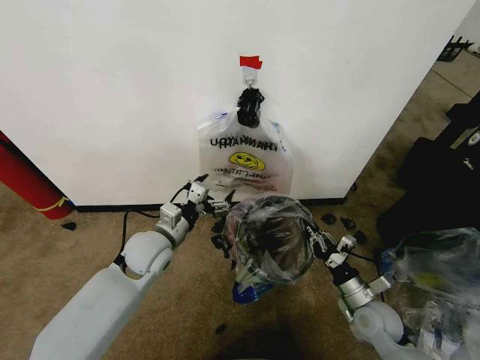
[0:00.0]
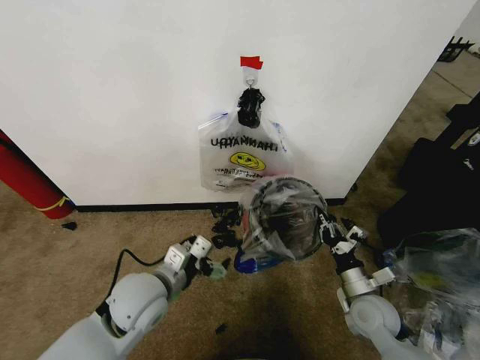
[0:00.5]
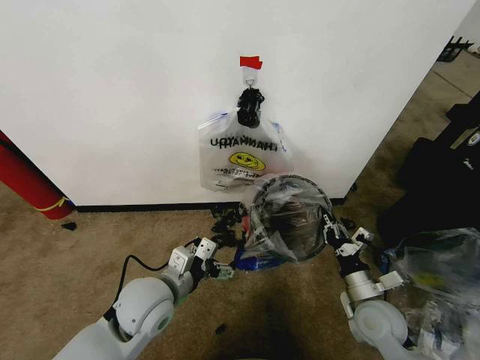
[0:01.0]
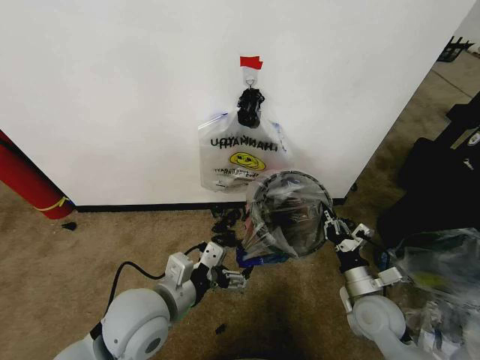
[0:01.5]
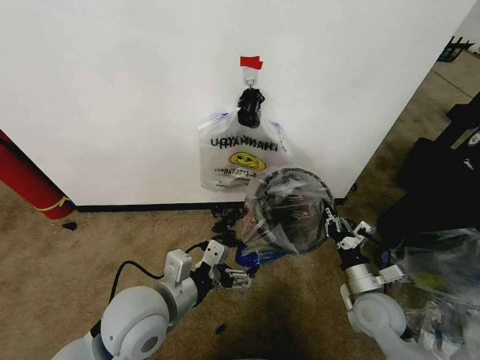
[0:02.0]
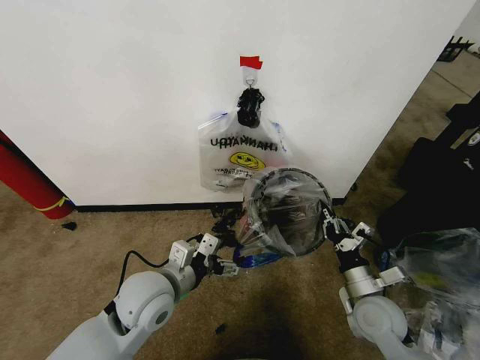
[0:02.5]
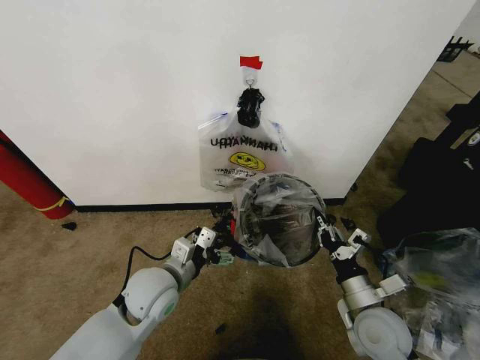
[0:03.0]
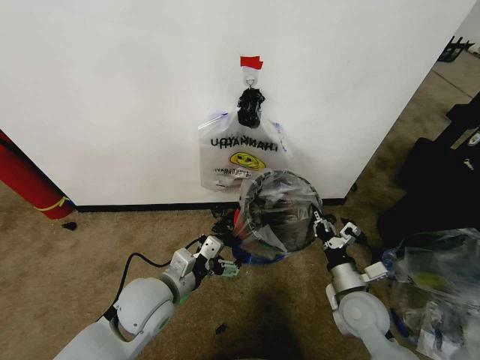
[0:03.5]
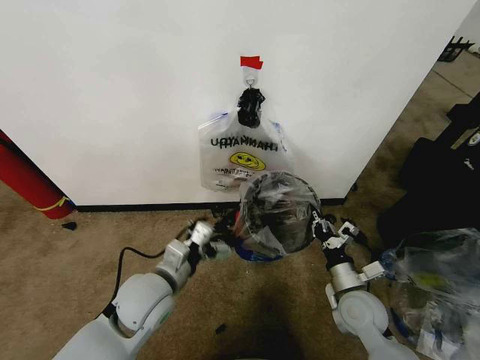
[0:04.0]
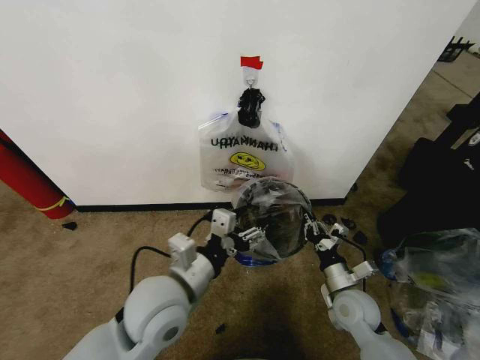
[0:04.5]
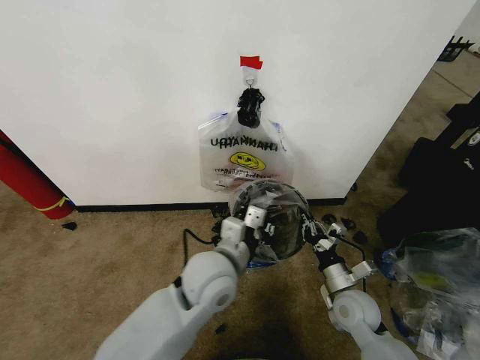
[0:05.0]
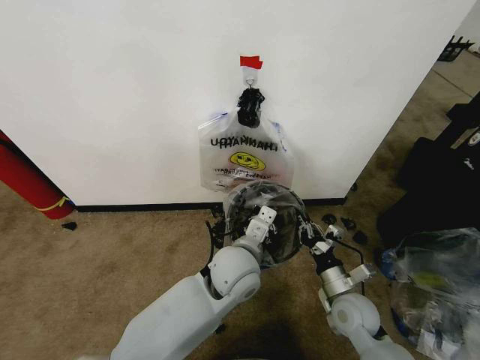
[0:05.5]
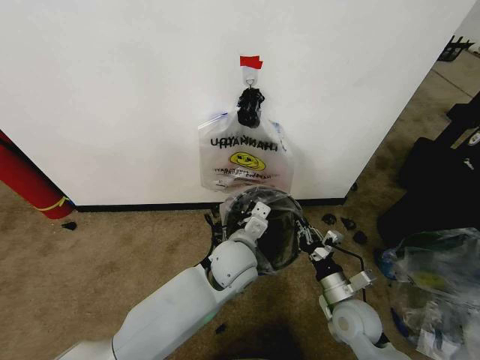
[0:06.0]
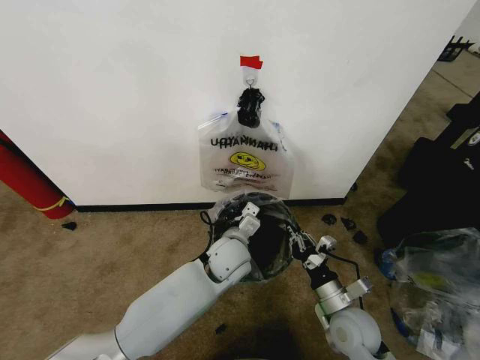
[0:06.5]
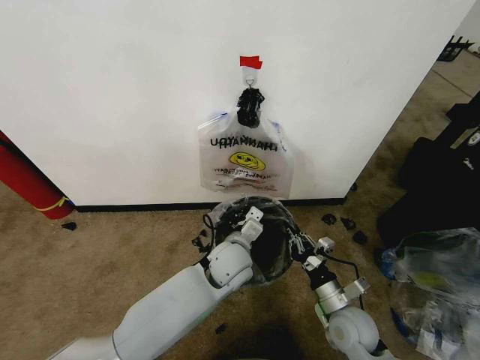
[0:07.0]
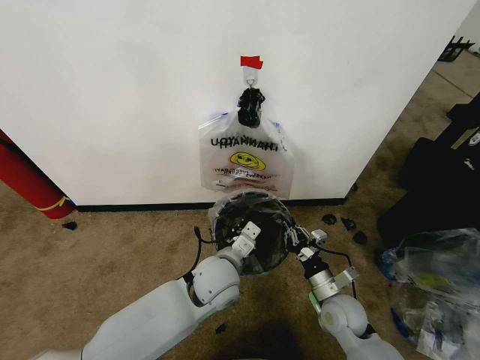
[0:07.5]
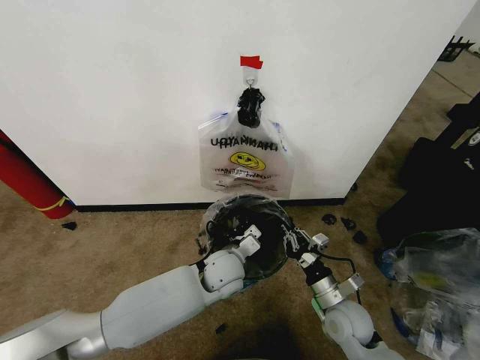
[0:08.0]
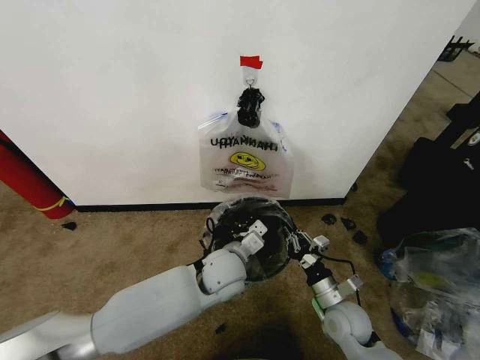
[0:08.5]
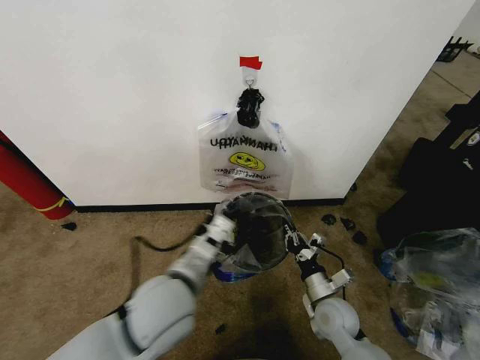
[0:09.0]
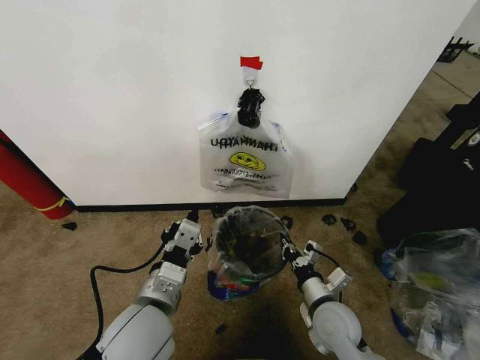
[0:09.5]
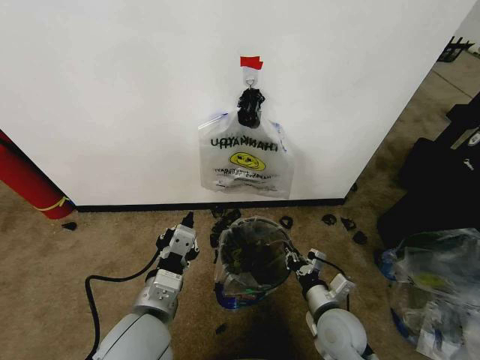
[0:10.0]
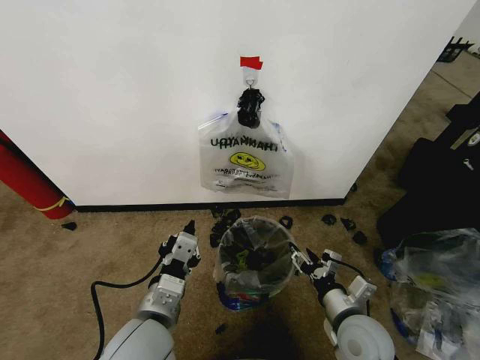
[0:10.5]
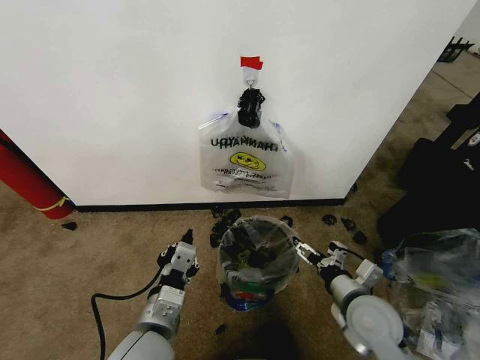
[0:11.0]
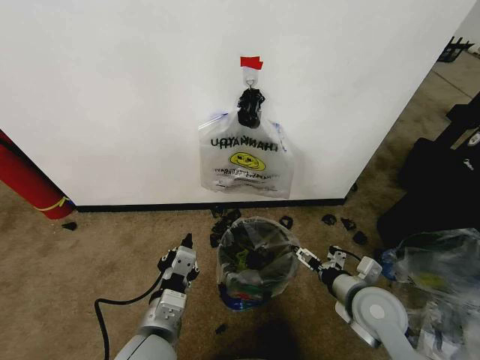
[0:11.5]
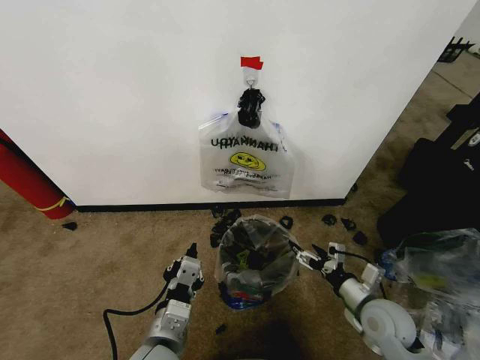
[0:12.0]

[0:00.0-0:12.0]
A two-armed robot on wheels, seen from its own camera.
Task of the whole recording: Pick up the garbage bag from the wall and place it over the trash bin.
0:00.0 to 0:02.0: The right gripper moves roughly 5 cm. Meanwhile the left gripper heads backward, covering some 15 cm.
0:02.0 to 0:04.0: The left gripper moves some 5 cm.
0:04.0 to 0:06.0: The left gripper goes some 20 cm to the right and forward, and closes.
0:06.0 to 0:08.0: The left gripper travels downward by approximately 5 cm.
0:08.0 to 0:10.0: The left gripper travels backward, to the left and upward by roughly 25 cm.
0:10.0 to 0:12.0: The right gripper heads to the right, covering approximately 10 cm, and opens. The left gripper shifts some 5 cm downward.

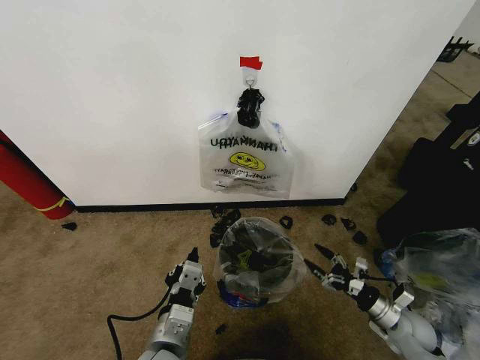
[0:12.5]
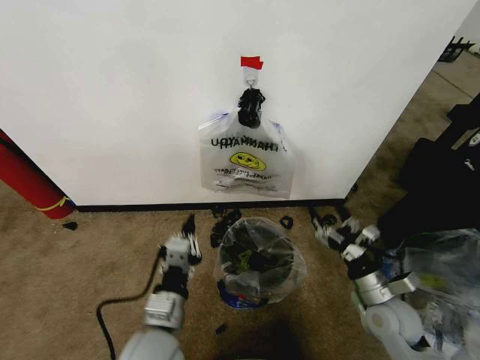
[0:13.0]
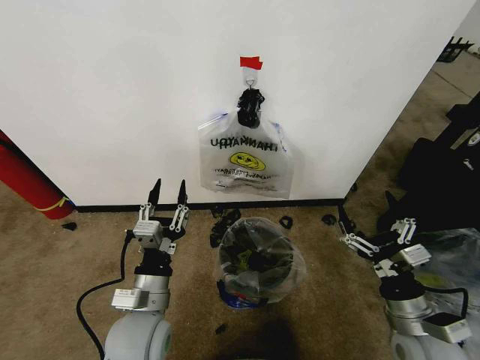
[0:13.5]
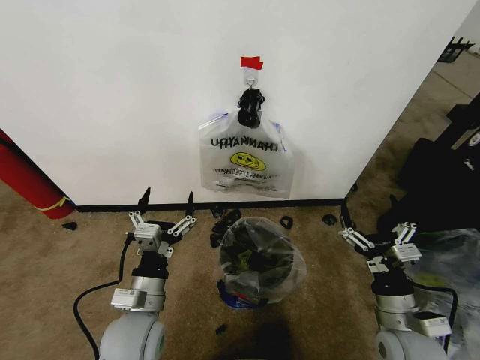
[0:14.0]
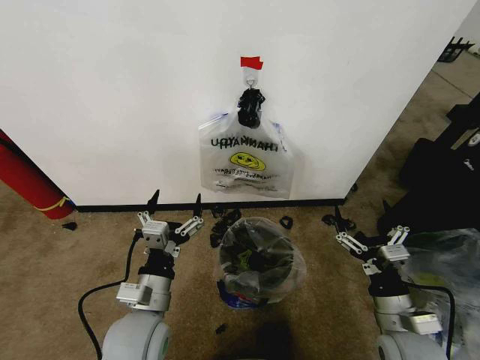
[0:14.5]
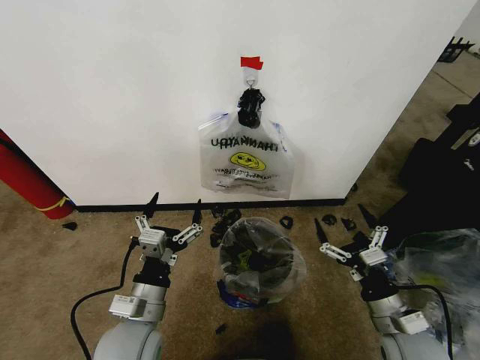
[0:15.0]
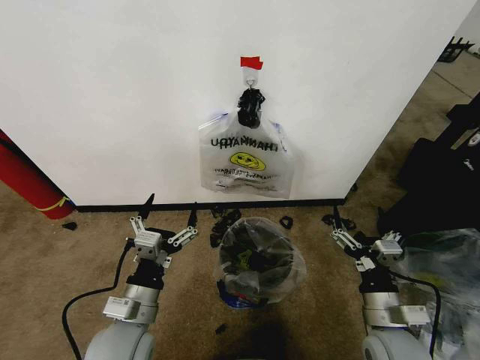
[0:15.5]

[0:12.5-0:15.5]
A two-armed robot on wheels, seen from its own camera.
Task of the whole recording: Pick up the garbage bag from the wall and place it over the trash bin.
0:12.5 to 0:14.0: The right gripper goes roughly 20 cm upward, to the left and backward; the left gripper heads forward and to the left, covering some 10 cm, and opens up.
0:14.0 to 0:15.5: The grippers stay close to where they were, moving slightly.
